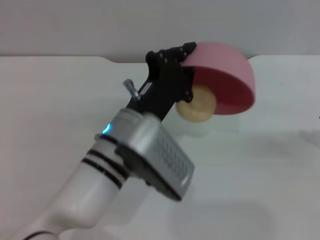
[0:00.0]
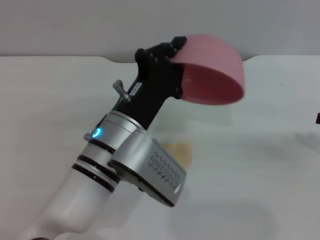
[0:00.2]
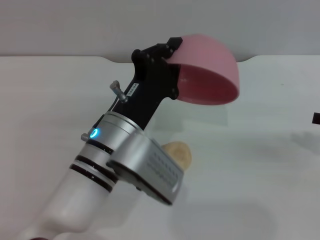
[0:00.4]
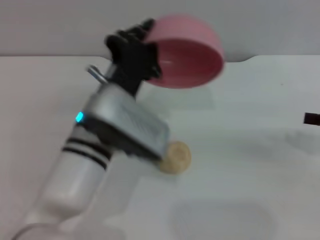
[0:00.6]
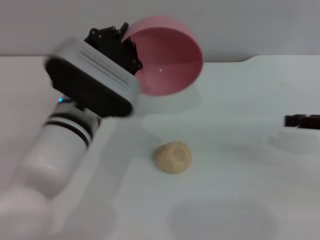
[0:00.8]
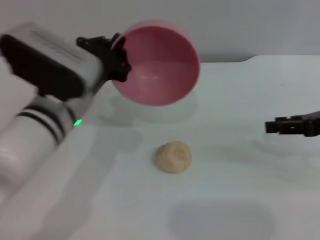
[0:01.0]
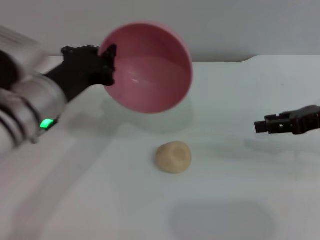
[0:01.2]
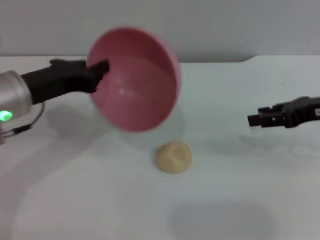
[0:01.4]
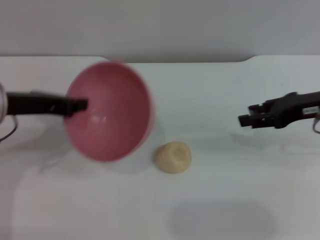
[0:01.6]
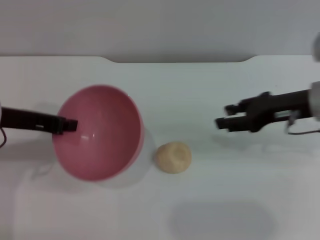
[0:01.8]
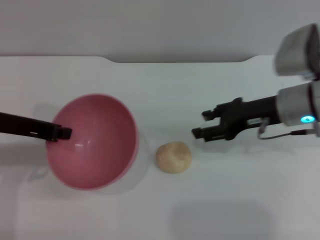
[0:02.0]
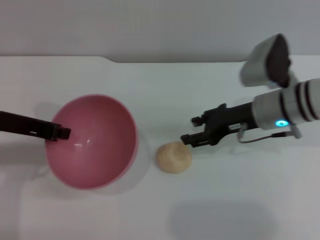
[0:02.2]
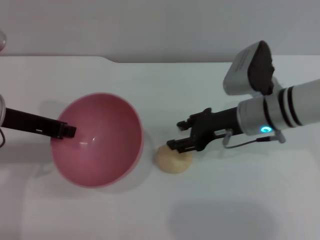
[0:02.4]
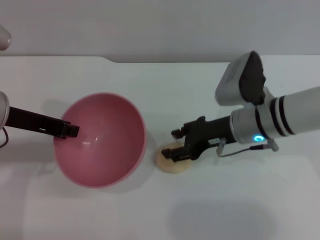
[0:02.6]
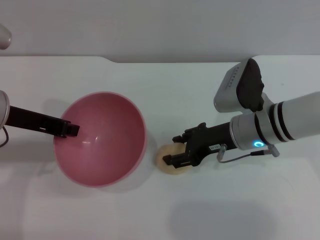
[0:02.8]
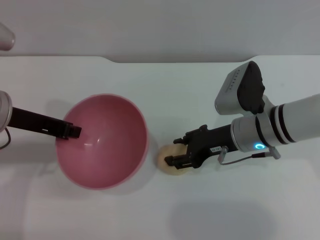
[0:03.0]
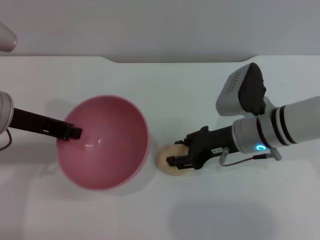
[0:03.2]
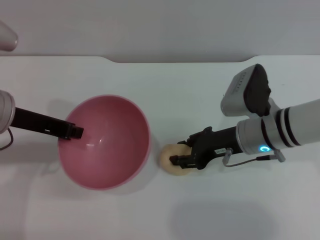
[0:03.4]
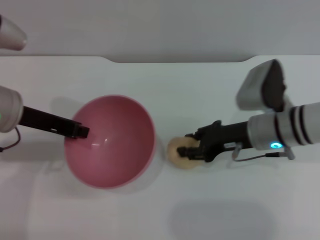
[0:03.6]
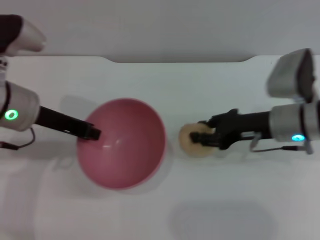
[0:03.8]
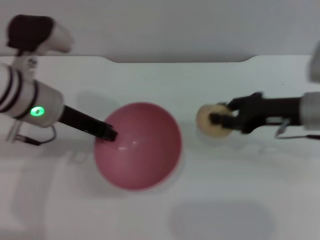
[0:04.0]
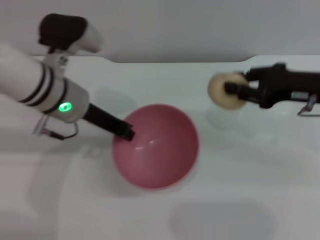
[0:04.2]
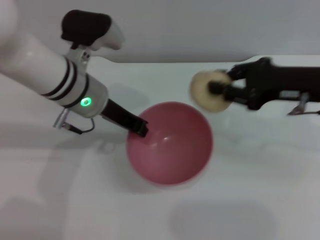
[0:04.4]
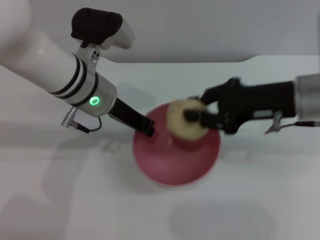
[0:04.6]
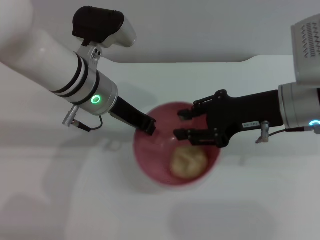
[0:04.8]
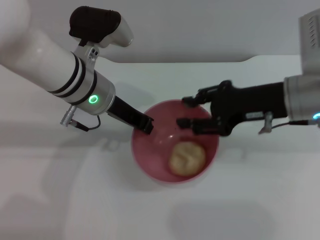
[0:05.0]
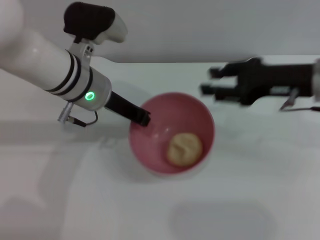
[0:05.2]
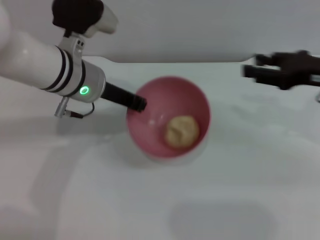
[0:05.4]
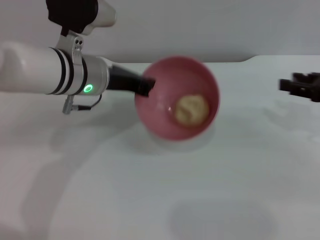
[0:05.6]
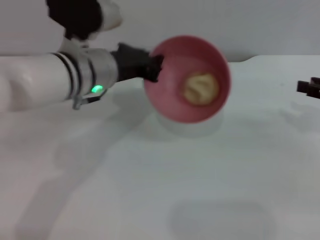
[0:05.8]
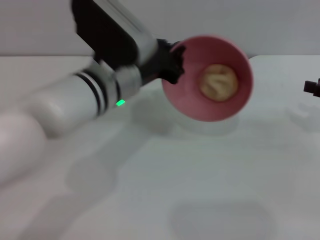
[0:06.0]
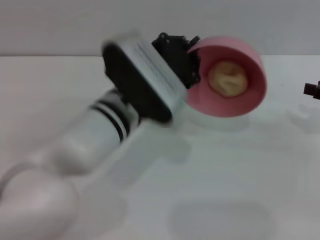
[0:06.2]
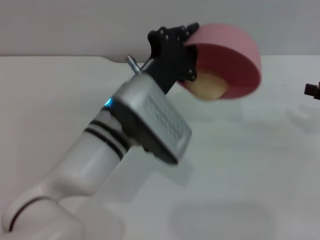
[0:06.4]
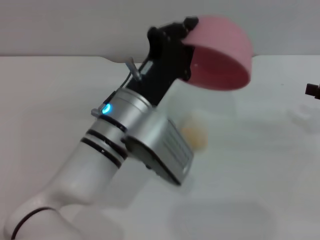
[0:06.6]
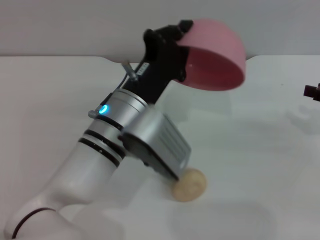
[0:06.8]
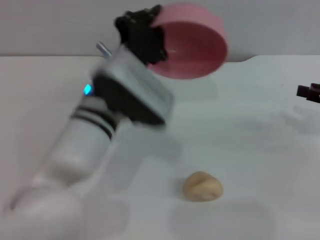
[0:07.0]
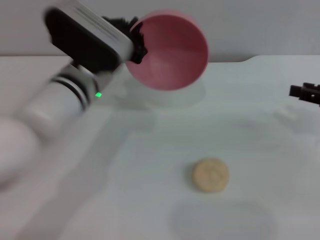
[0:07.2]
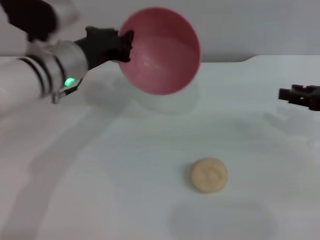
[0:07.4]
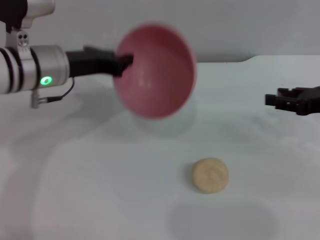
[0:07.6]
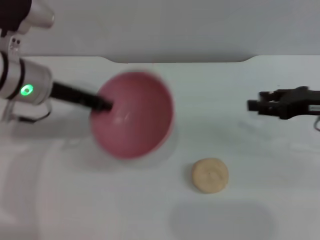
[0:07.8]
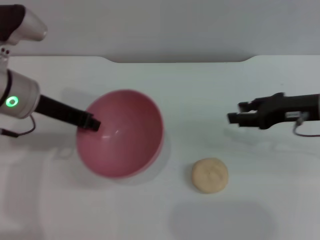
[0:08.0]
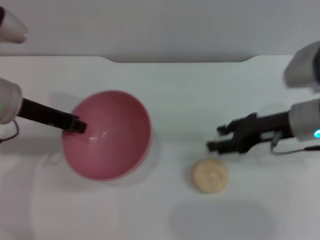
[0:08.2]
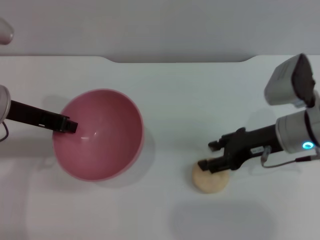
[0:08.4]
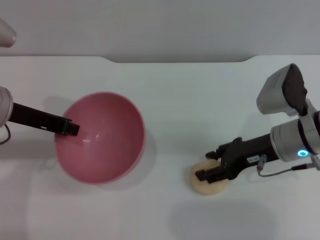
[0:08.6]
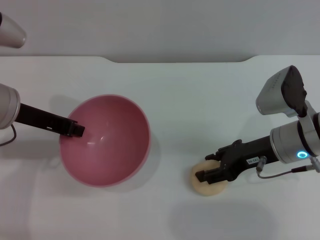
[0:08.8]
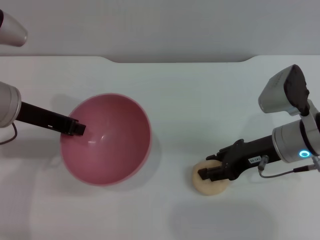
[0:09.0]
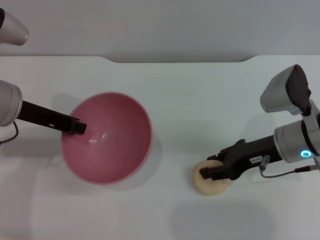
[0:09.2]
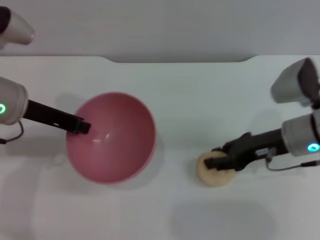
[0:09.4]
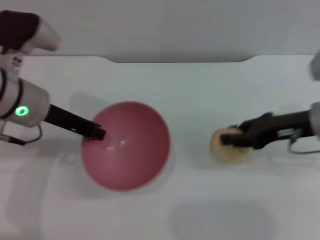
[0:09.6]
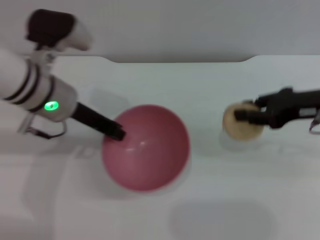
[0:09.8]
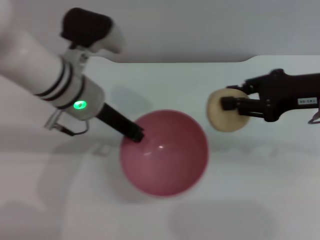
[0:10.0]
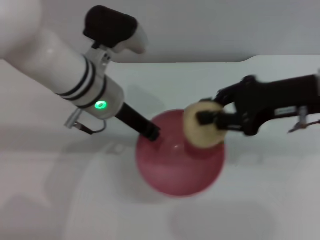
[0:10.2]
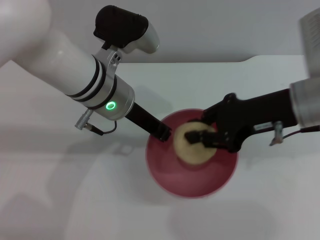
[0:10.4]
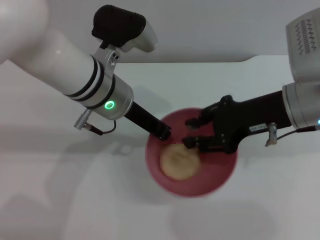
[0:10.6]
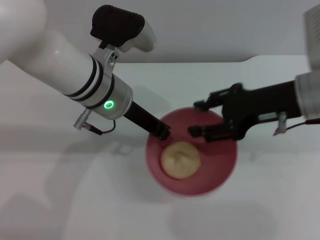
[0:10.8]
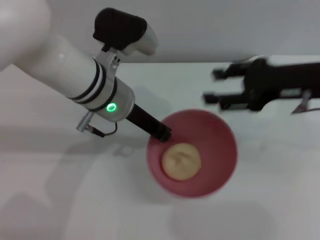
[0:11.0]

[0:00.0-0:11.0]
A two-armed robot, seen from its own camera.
Task of the whole recording: put the egg yolk pastry into the pink bowl and pour it out repeatedly.
Step, 0:00.6 to 0:03.8: Pick up the egg yolk pastry with the right gripper.
Step, 0:04.0 to 0:05.0: Place the egg yolk pastry into the bowl.
Step, 0:05.2 to 0:06.6: Pour the egg yolk pastry out of bowl.
Step, 0:06.8 to 0:09.6: Pick up the egg yolk pastry with the right gripper.
Step, 0:10.0 to 0:10.8: Place the egg yolk pastry into the bowl.
0:00.0 to 0:01.6: The left gripper moves to the left, about 20 cm, while the right gripper moves to the left and forward, some 15 cm.
0:01.6 to 0:03.2: The right gripper heads to the left and downward, covering approximately 15 cm.
0:03.2 to 0:04.8: The right gripper moves upward, roughly 10 cm, reaches some 10 cm to the right, then returns, and closes its fingers. The left gripper goes some 15 cm to the right and forward.
0:04.8 to 0:06.2: The left gripper travels backward and to the right by roughly 10 cm; the right gripper goes about 20 cm to the right, and opens.
0:06.2 to 0:07.8: The right gripper heads to the left, covering approximately 5 cm, while the left gripper is displaced to the left and forward by approximately 15 cm.
0:07.8 to 0:09.4: The right gripper travels to the left by about 10 cm.
0:09.4 to 0:11.0: The left gripper goes about 15 cm to the right. The right gripper shifts roughly 10 cm upward.

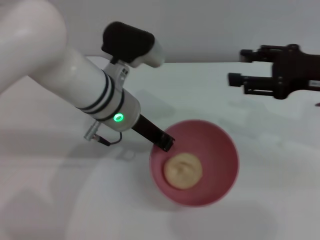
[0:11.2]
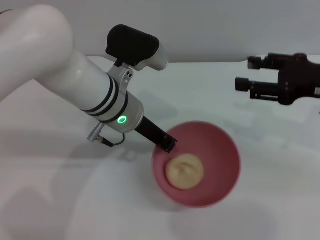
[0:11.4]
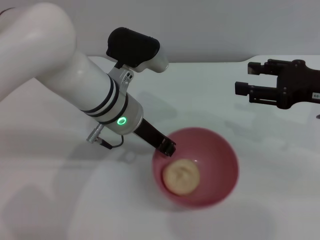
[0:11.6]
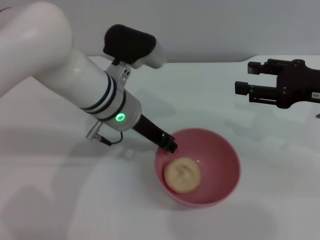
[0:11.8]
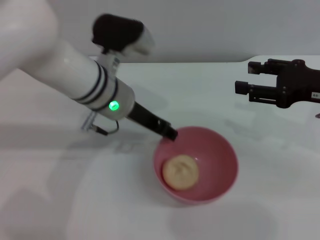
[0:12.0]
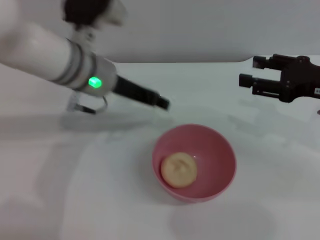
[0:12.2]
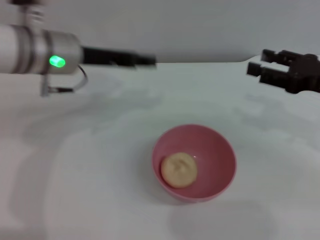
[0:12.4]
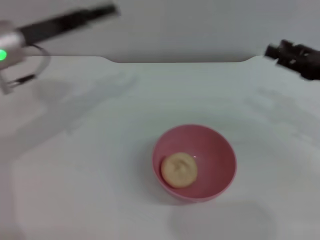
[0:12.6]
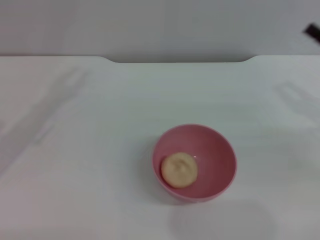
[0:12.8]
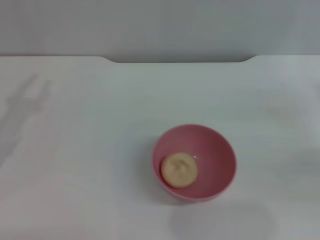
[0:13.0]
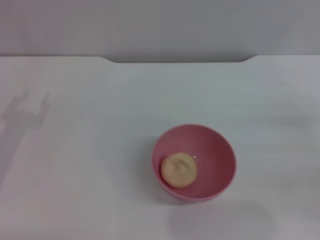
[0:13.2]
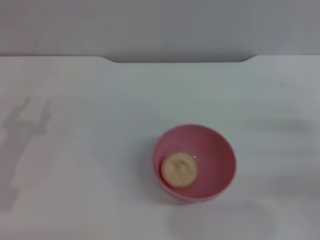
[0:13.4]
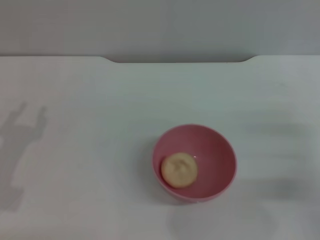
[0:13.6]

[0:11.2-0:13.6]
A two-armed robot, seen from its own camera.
Task of the whole recording: put the egg yolk pastry into the pink bowl and pour it out repeatedly.
Step, 0:11.2 to 0:12.2: Pour the egg yolk pastry out of bowl.
0:11.2 to 0:12.4: The left gripper heads to the left, covering roughly 10 cm, and opens its fingers, while the right gripper ends up about 5 cm from where it was.
0:12.4 to 0:13.6: The left gripper heads to the left, backward and downward, covering roughly 25 cm. The right gripper travels downward and backward by approximately 15 cm.

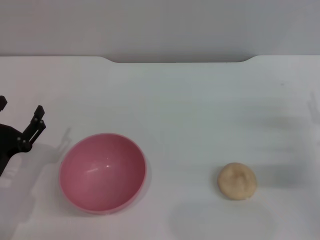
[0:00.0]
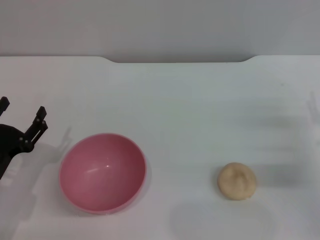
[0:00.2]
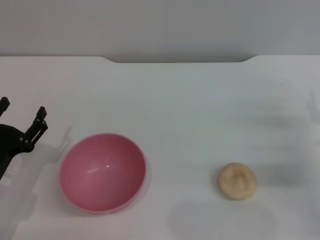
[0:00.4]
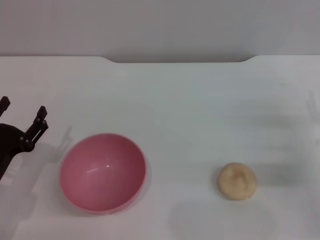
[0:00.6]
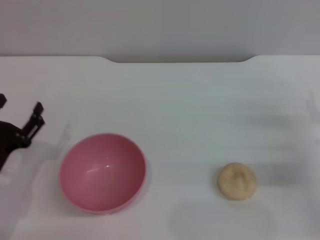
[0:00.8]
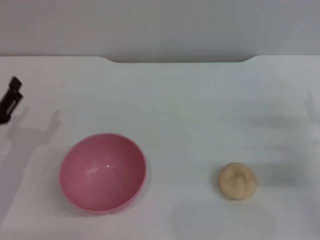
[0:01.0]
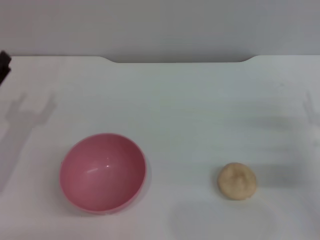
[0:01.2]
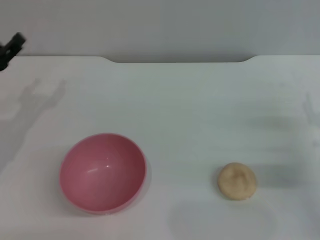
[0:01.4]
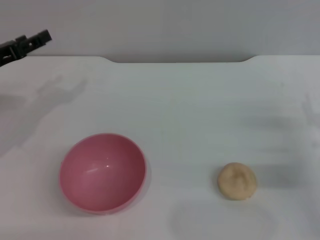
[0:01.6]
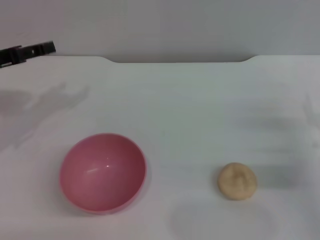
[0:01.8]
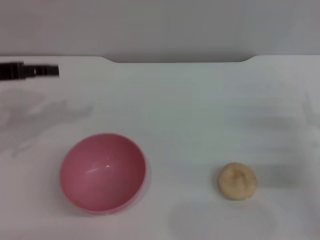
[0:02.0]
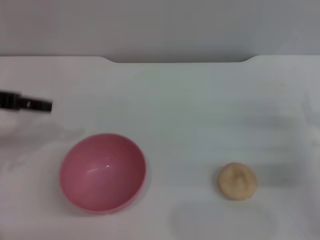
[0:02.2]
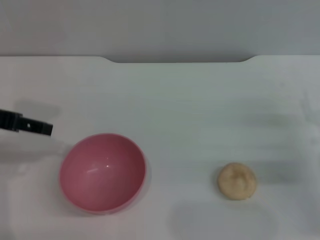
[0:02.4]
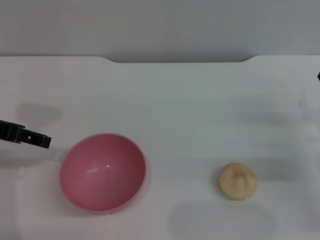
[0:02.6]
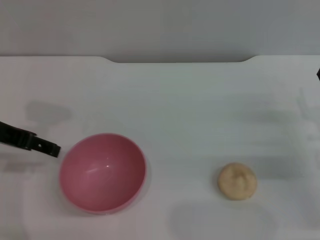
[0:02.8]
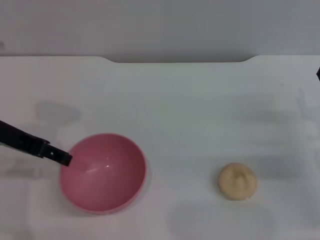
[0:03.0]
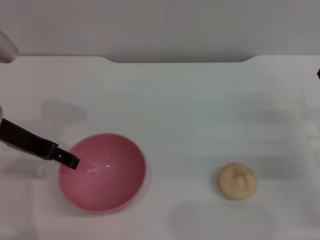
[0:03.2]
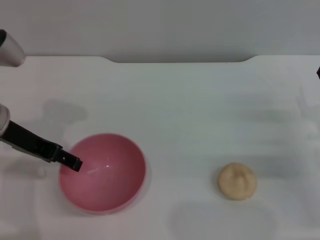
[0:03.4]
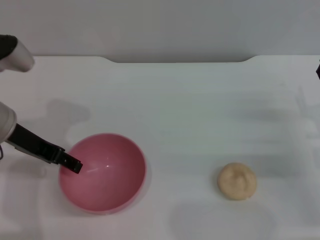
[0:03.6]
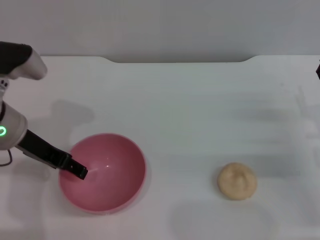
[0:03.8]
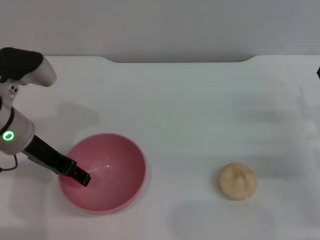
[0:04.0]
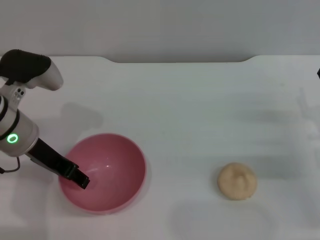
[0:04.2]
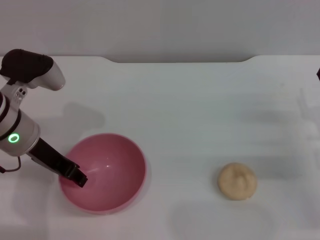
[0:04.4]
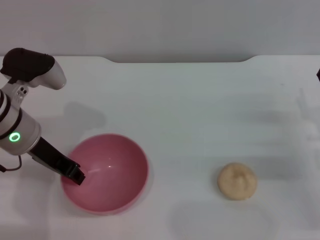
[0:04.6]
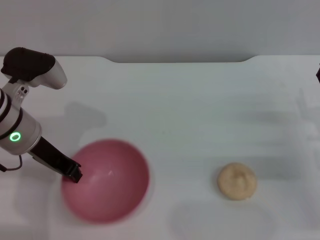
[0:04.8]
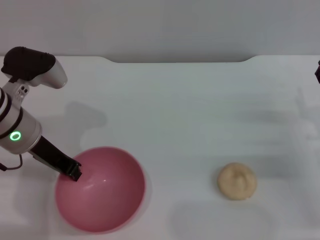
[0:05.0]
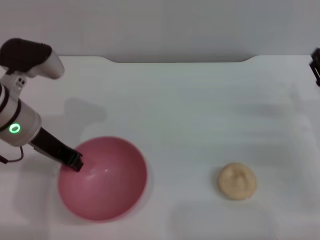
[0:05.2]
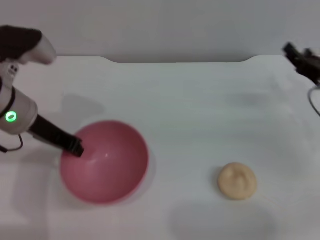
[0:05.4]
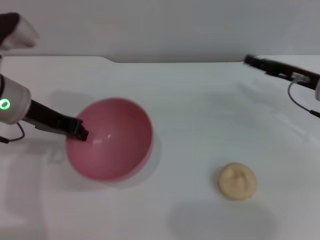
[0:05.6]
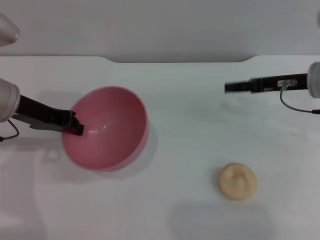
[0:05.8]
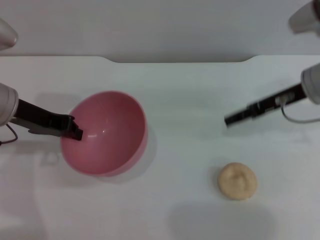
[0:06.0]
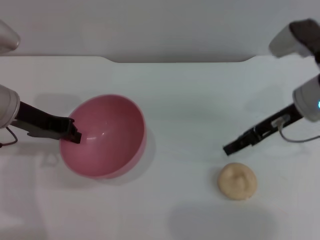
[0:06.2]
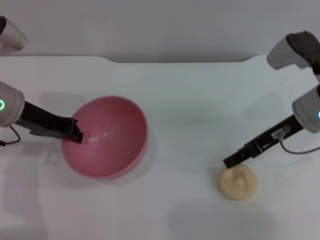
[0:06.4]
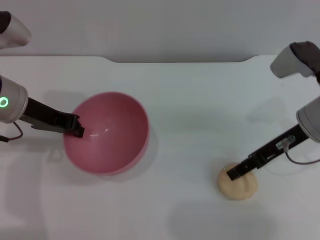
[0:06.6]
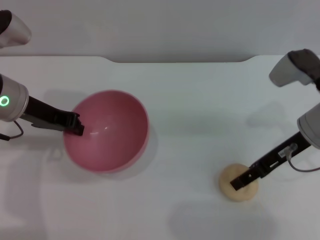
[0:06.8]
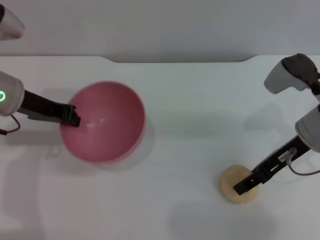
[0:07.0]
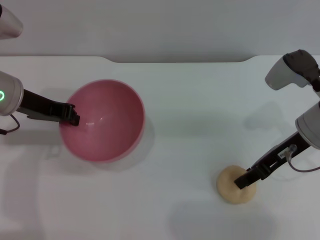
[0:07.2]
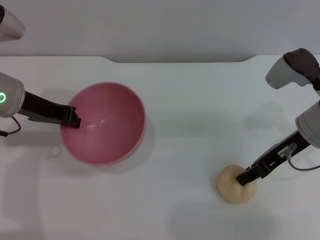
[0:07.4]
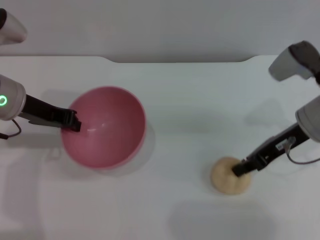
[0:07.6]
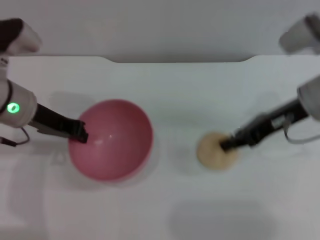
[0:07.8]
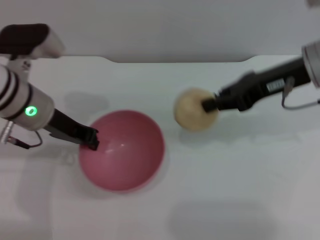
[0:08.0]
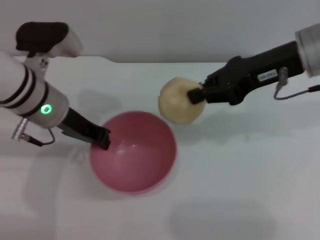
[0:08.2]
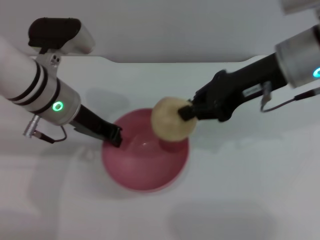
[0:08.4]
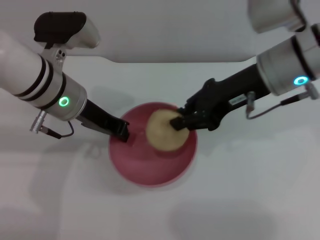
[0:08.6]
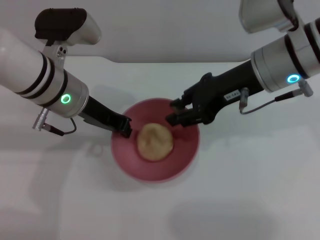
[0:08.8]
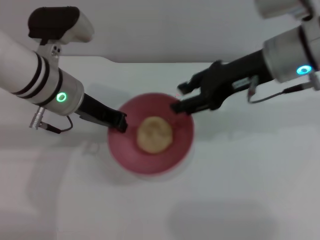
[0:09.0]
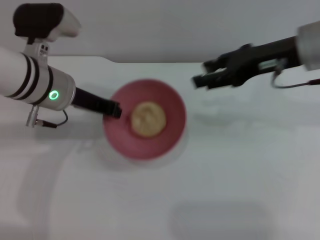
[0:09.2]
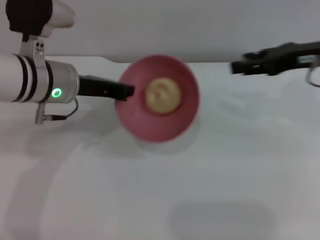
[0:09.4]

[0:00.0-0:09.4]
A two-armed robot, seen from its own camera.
Task of the whole recording: put the egg yolk pastry into the pink bowl and pour it out repeatedly.
Step, 0:00.0 to 0:05.4: Pick up the bowl with the left gripper.
Step, 0:05.8 to 0:07.6: Pick up the egg yolk pastry with the right gripper.
0:00.0 to 0:01.6: The left gripper heads forward and upward, covering some 20 cm.
0:01.6 to 0:03.2: The left gripper shifts some 5 cm to the right.
0:03.2 to 0:04.8: The left gripper moves roughly 5 cm, and closes its fingers.
0:04.8 to 0:06.2: The right gripper is displaced upward, forward and to the left by about 15 cm.
0:06.2 to 0:07.8: The right gripper closes.
0:07.8 to 0:09.4: The left gripper shifts some 5 cm to the right, while the right gripper shifts by roughly 5 cm, and opens up.
